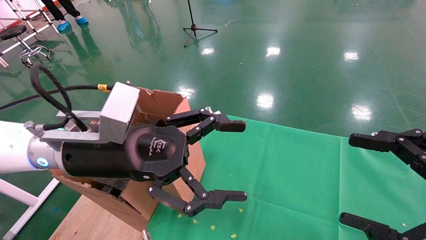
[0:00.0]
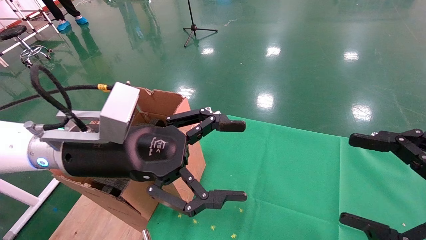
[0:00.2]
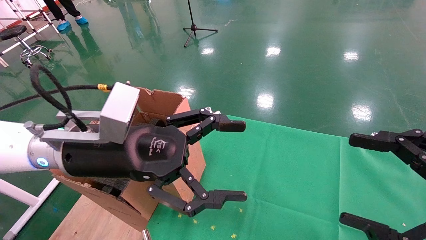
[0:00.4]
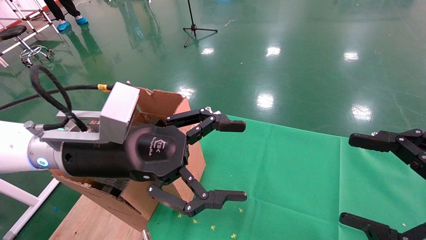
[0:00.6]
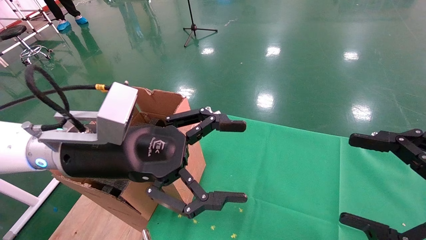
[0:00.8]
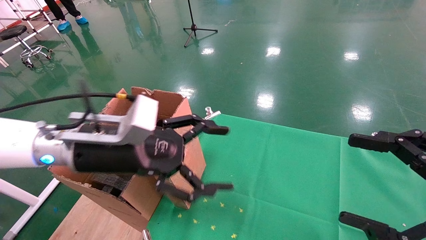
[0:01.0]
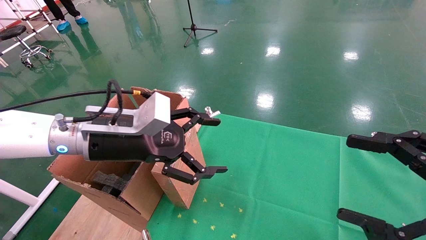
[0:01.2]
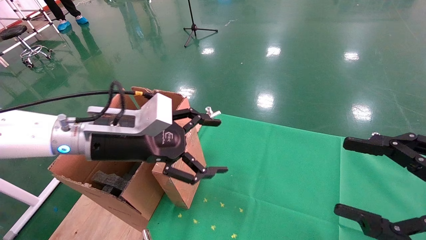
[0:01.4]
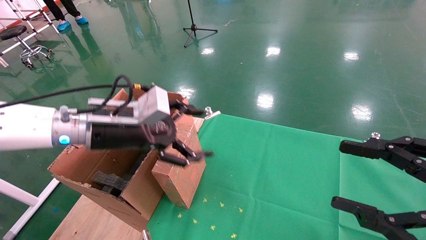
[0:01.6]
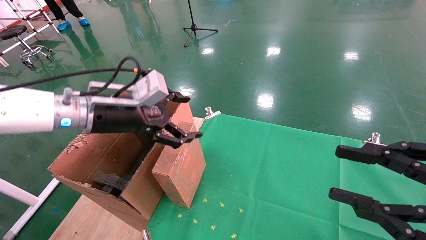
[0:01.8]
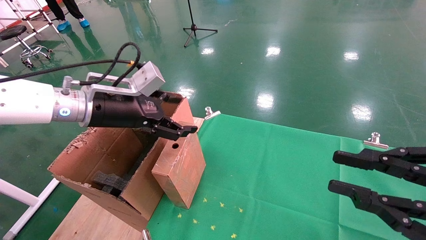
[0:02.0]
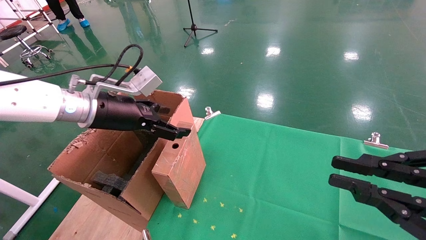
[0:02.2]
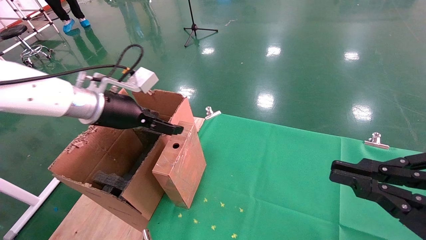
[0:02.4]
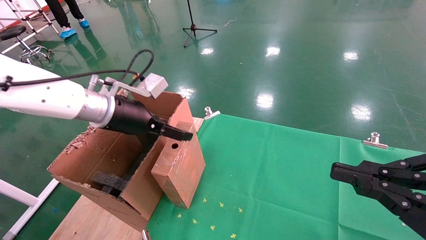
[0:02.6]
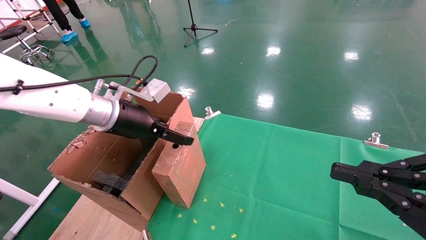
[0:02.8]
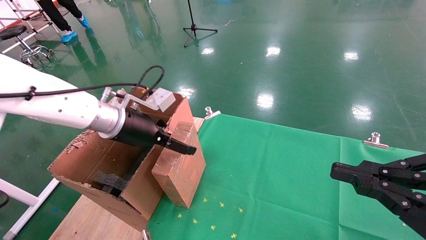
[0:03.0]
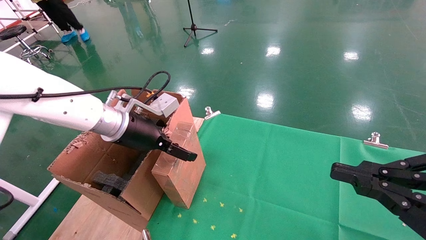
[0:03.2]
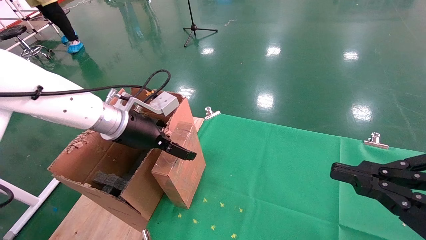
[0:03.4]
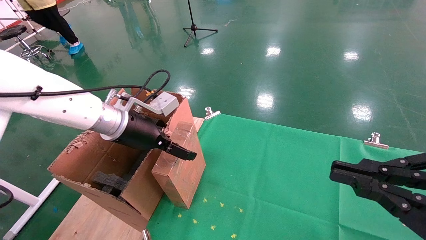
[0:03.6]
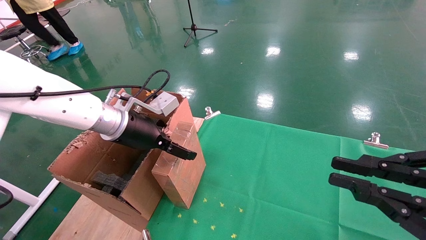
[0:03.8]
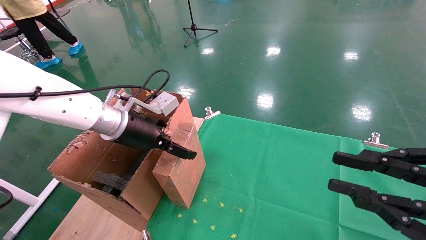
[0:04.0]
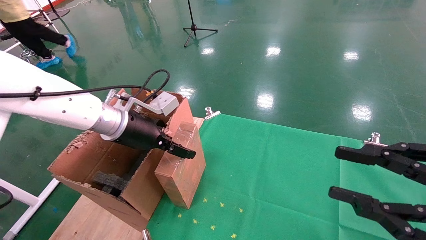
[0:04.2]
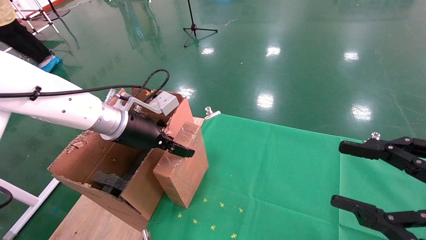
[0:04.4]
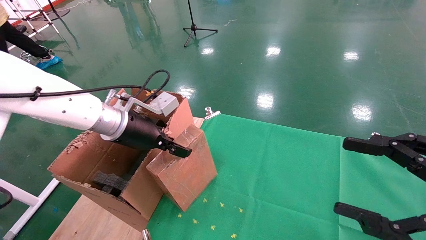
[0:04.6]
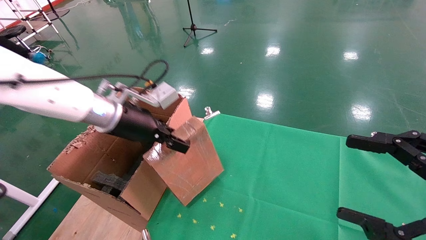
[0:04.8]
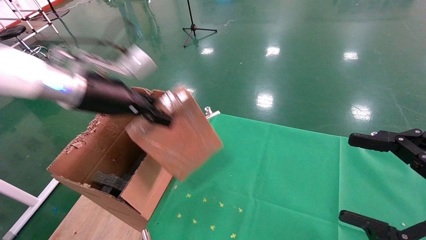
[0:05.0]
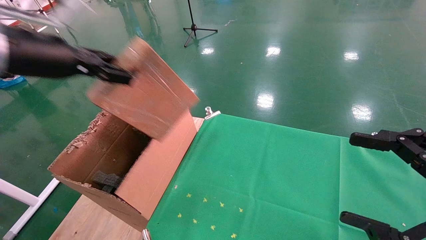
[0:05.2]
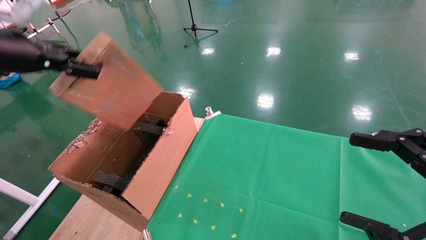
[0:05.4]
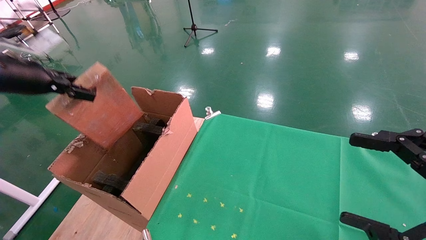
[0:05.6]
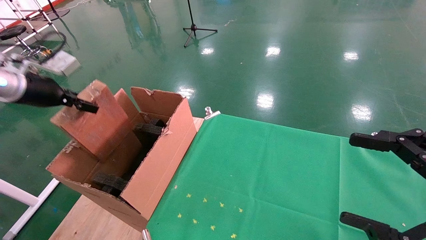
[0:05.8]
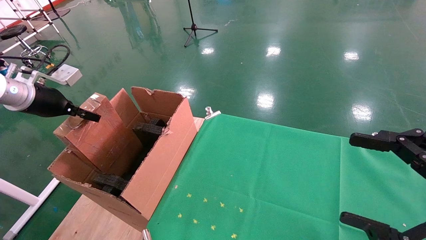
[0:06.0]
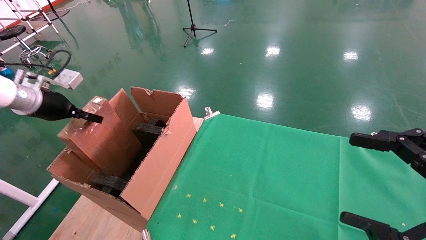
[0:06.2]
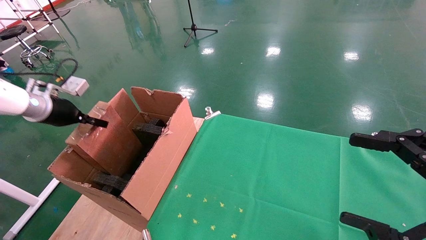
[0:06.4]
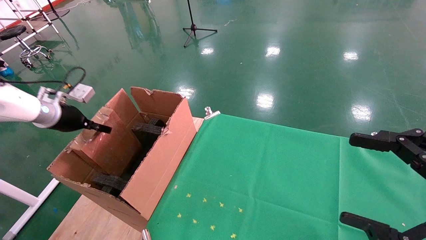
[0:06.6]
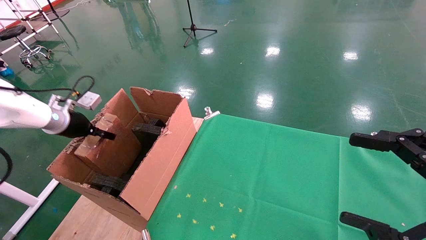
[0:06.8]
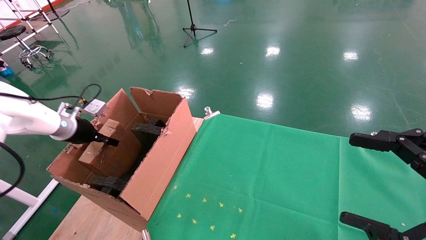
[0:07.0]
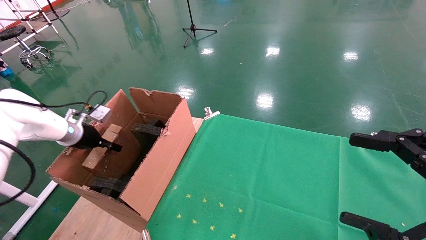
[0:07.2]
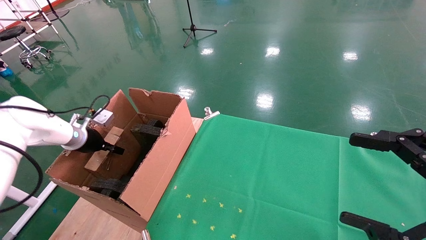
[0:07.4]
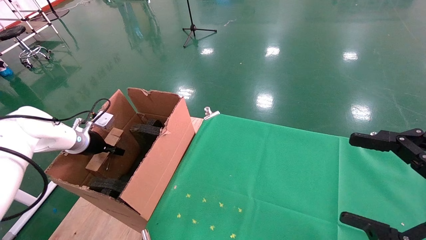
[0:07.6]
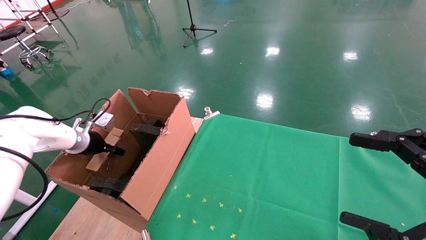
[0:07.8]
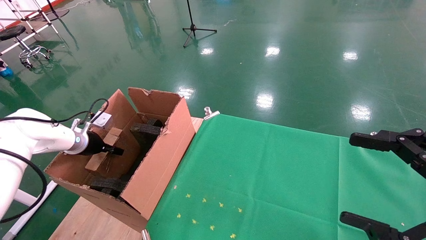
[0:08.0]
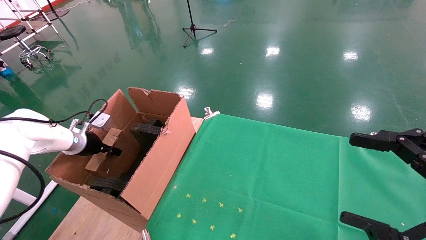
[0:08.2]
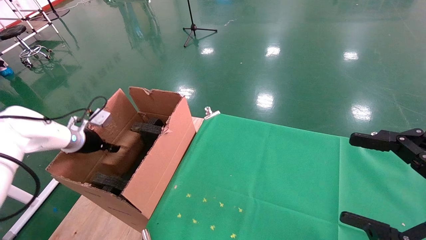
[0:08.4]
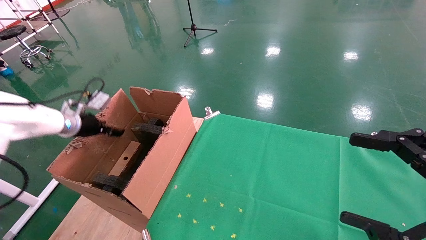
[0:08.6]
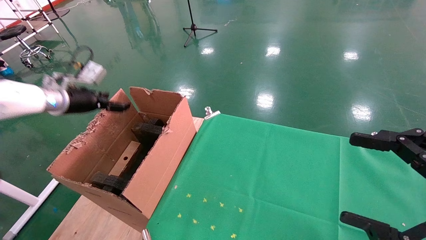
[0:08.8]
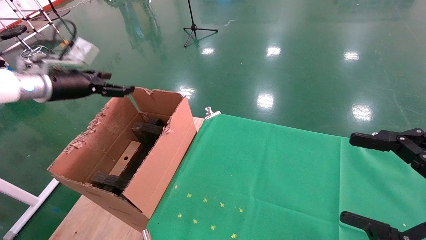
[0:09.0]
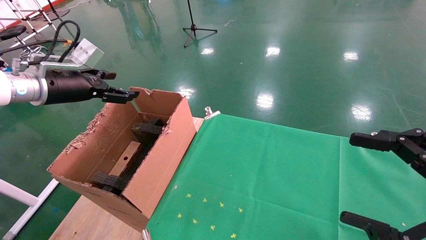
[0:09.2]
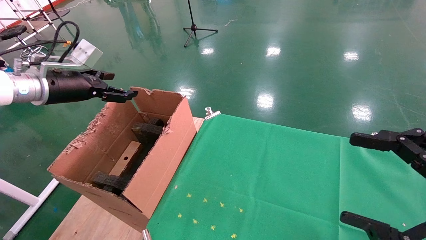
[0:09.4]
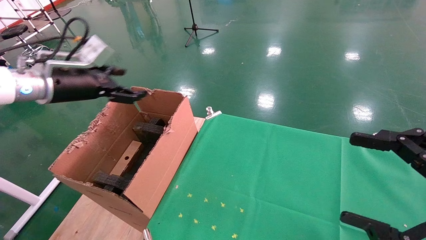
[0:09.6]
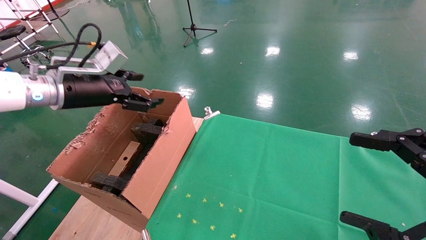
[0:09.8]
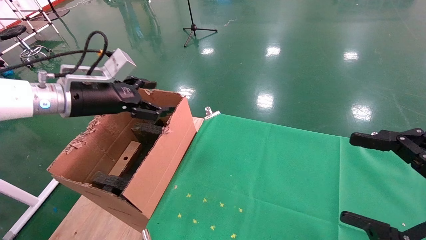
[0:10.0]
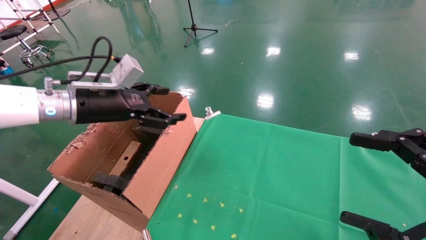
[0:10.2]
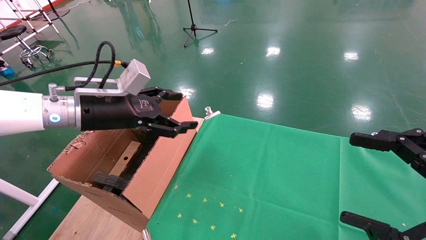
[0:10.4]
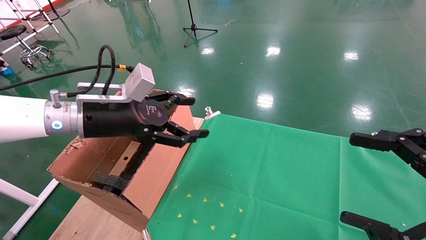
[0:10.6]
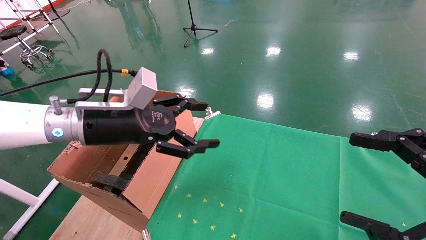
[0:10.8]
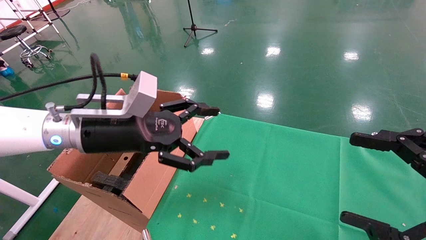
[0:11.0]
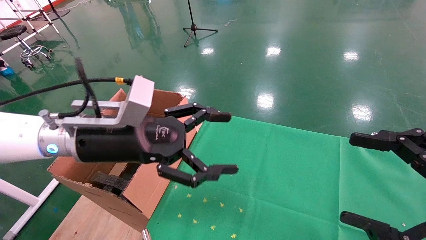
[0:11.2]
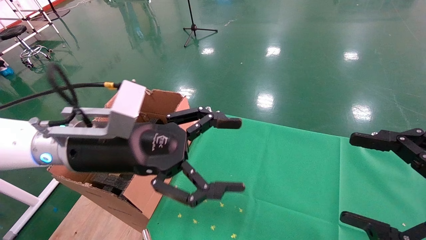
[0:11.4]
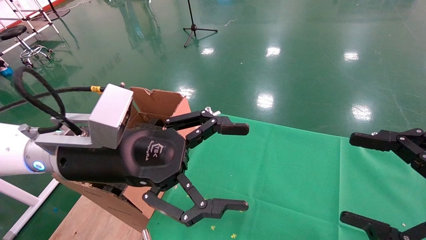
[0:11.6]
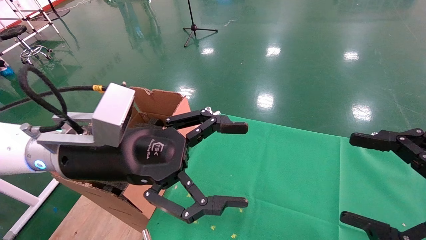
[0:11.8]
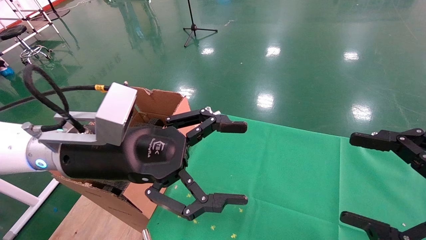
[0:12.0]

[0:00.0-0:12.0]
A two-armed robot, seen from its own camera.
Task of the whole recording: using a robotic arm to pick up a cardboard box and palace it the carton.
Step, 0:01.2 to 0:04.4: Pick up the mouse and the power cord paper box.
Step, 0:04.6 to 0:08.6: Place the mouse and the power cord paper box into the container.
0:00.0 to 0:01.6: The left gripper travels forward by roughly 5 cm.
0:01.6 to 0:03.0: The left gripper ends up approximately 5 cm from where it was. The right gripper closes its fingers.
0:03.0 to 0:04.4: The left gripper closes its fingers; the right gripper opens up.
0:04.4 to 0:06.0: The right gripper opens up; the left gripper goes approximately 25 cm to the left, and closes up.
0:06.0 to 0:07.6: The left gripper is displaced downward and forward by about 15 cm.
0:07.6 to 0:09.0: The left gripper is displaced upward by roughly 15 cm, and opens its fingers.
0:09.0 to 0:10.4: The left gripper heads to the right, covering about 15 cm.
0:10.4 to 0:12.0: The left gripper goes some 15 cm to the right and backward.

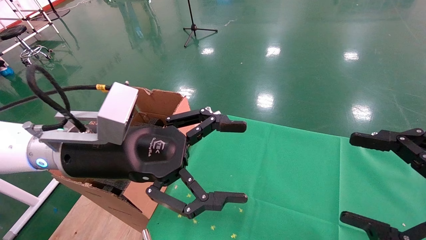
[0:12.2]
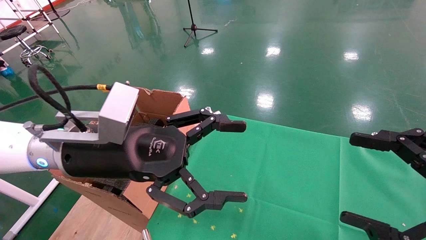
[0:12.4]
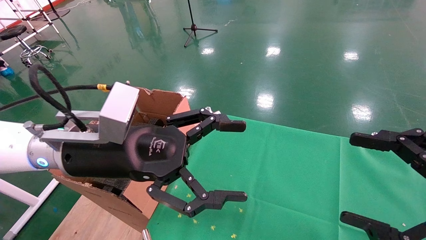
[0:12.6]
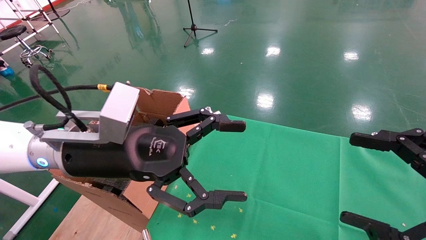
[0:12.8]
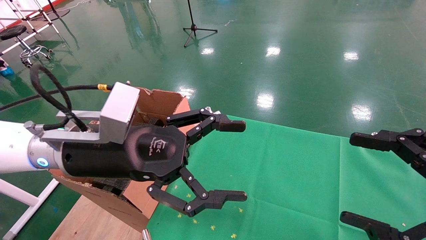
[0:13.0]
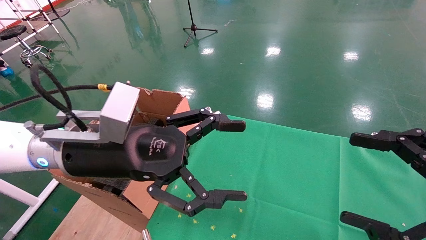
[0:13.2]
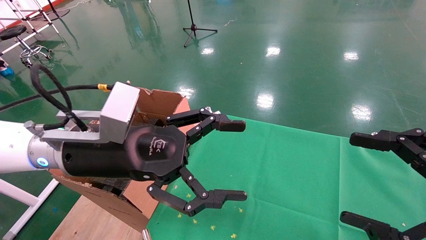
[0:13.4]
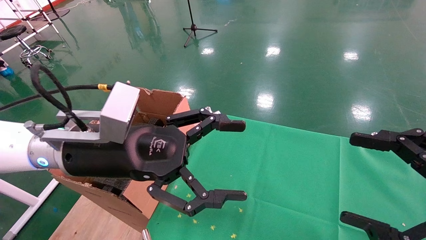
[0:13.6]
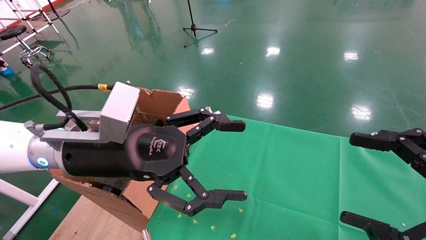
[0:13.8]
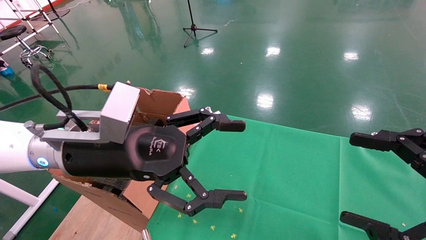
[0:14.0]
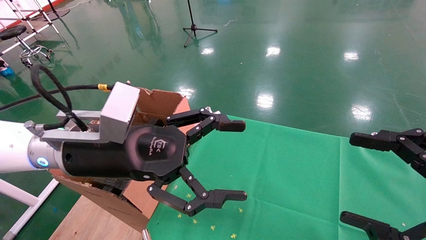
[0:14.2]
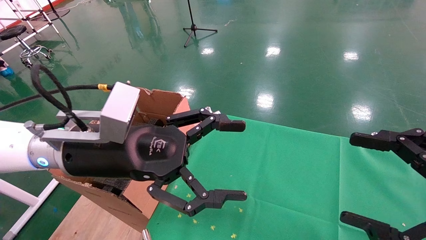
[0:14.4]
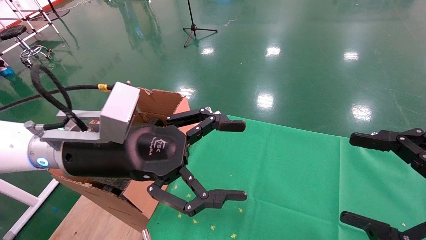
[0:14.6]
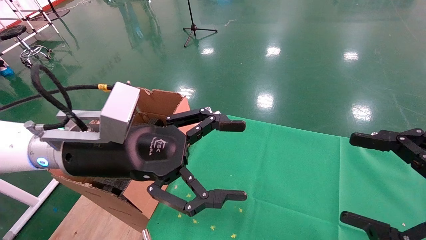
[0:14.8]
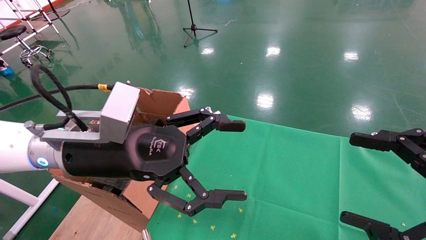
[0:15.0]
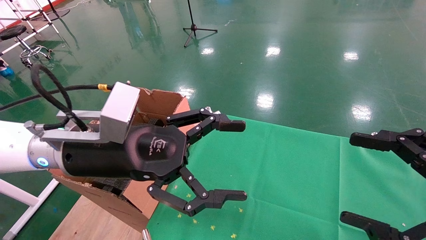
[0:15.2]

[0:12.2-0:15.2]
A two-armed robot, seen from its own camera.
Task of the whole recording: using a robotic arm to pick up a cardboard box and palace it the carton.
0:12.2 to 0:15.2: Neither gripper changes place.
